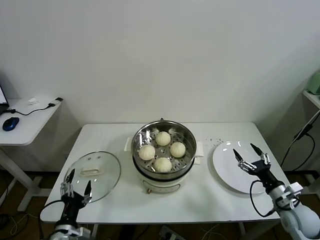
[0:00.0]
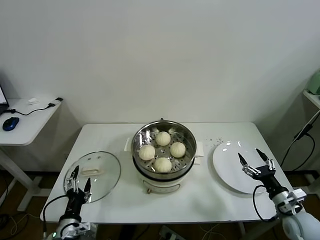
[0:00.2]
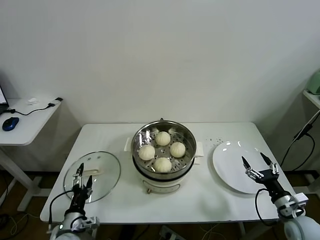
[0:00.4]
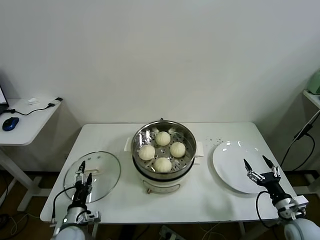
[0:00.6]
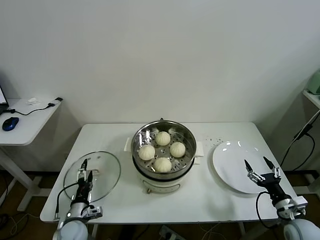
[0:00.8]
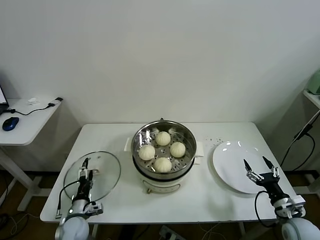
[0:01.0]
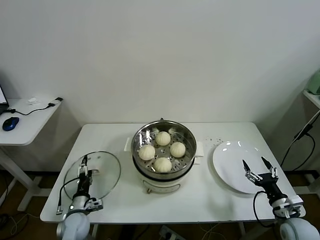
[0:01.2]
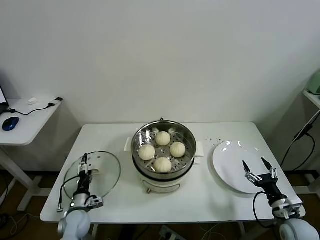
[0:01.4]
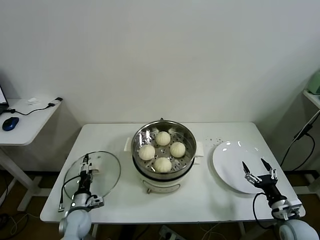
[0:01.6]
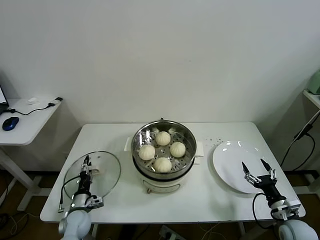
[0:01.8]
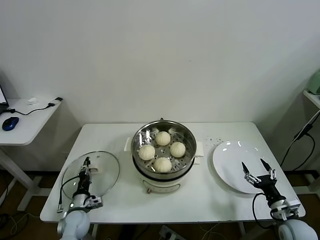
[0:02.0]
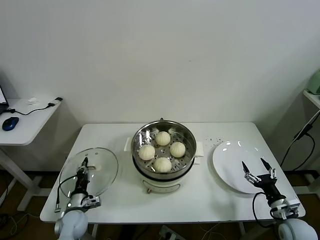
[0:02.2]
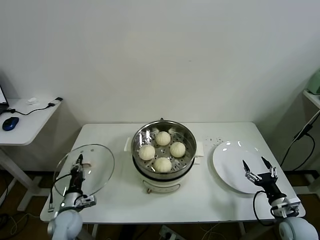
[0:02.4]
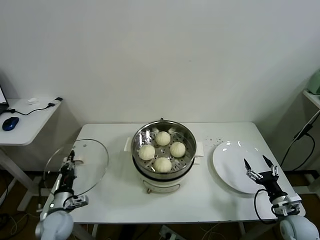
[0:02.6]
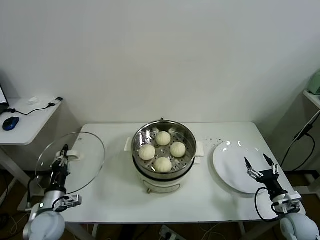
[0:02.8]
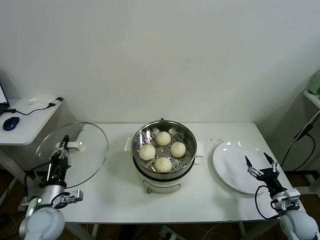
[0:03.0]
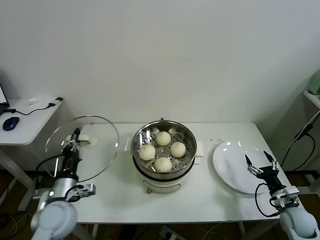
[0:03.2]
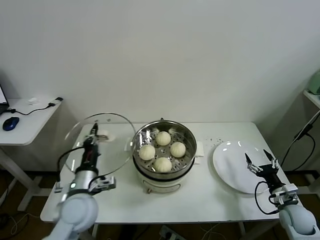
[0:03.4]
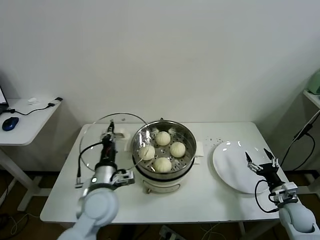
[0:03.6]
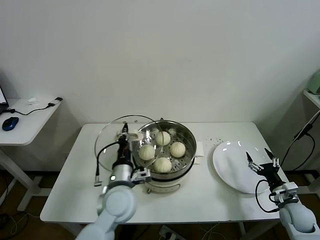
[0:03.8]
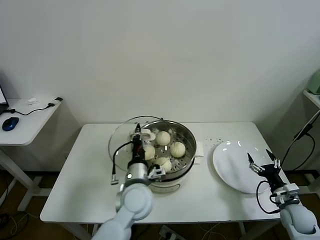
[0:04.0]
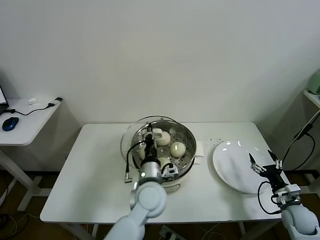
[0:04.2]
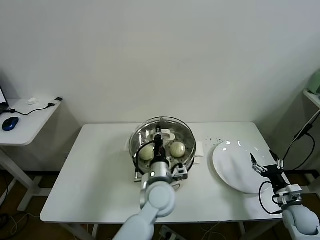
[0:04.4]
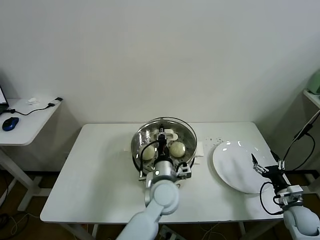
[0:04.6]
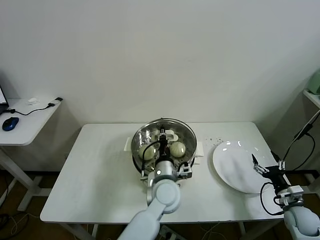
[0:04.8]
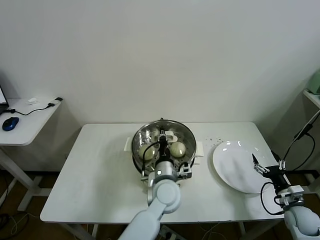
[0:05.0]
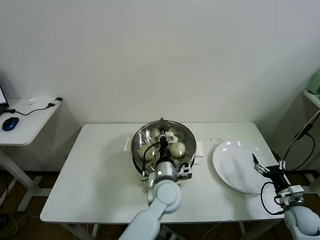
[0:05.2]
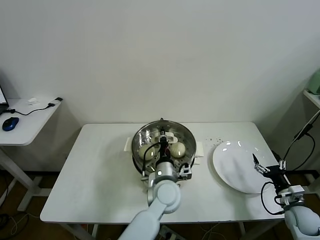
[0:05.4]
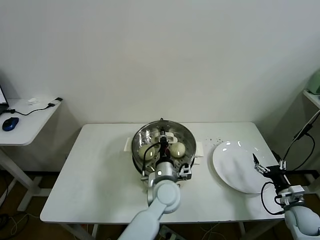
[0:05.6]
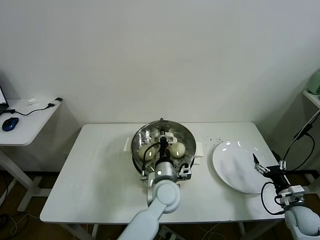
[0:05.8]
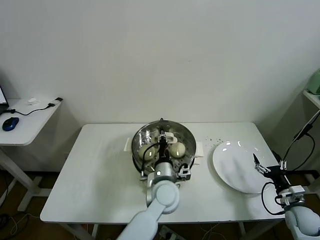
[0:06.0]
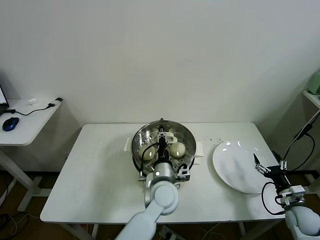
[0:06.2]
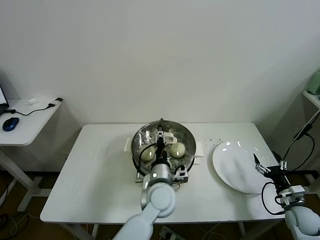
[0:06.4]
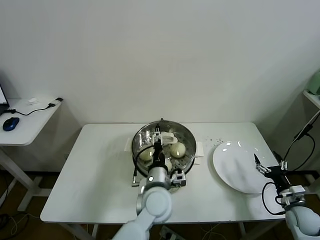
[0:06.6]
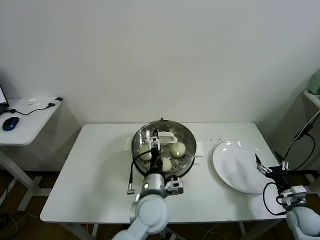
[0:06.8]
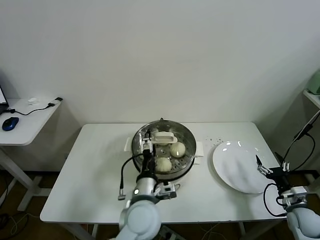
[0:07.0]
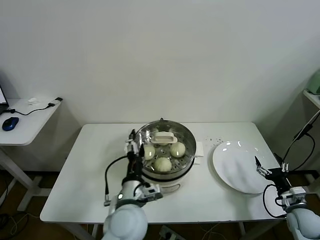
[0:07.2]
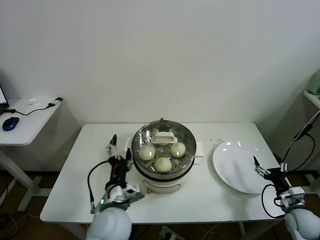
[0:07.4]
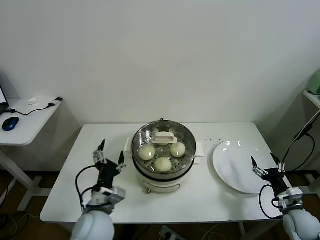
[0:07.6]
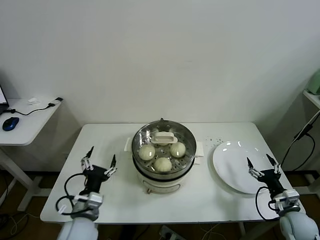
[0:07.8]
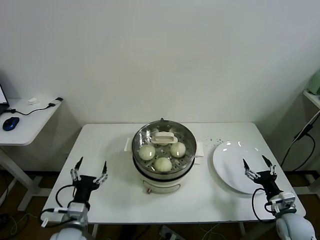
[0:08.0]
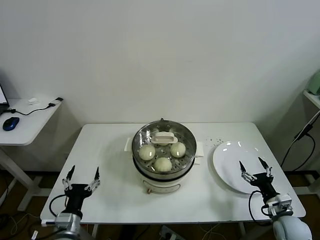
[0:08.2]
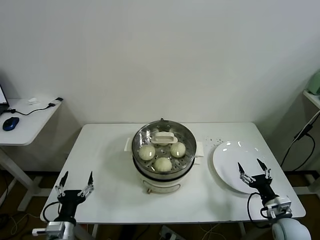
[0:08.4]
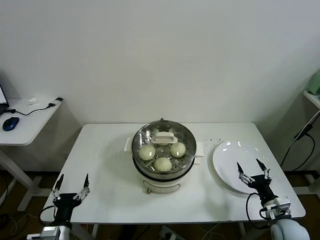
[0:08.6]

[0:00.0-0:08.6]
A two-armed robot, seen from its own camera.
Task of the whole recording: take steamed baozi put them in steamer.
Step, 0:00.0 to 0:02.2: Grasp the pot lid with left gripper.
Step, 0:02.4 to 0:06.6: Place the pot lid on the steamer with left gripper.
0:00.0 to 0:01.4: The right gripper changes place by approximately 5 cm, while the left gripper goes roughly 20 cm forward and downward.
0:01.4 to 0:02.8: The left gripper goes approximately 10 cm upward, and closes.
0:02.8 to 0:04.4: The left gripper travels to the right by roughly 35 cm.
0:04.4 to 0:05.8: The grippers make only small movements.
0:05.8 to 0:07.2: The left gripper travels backward and to the left by approximately 10 cm, and opens its fingers.
0:07.2 to 0:08.6: The left gripper is displaced to the left and downward by roughly 25 cm. The right gripper travels to the left by approximately 5 cm.
